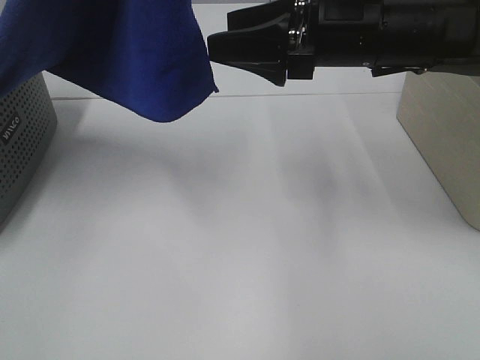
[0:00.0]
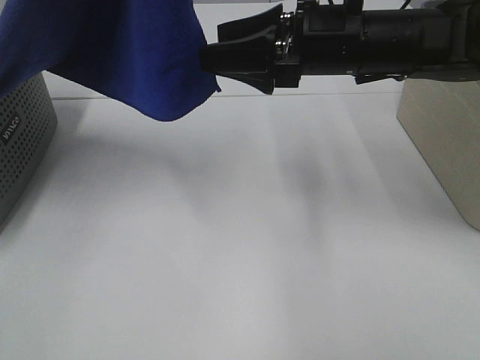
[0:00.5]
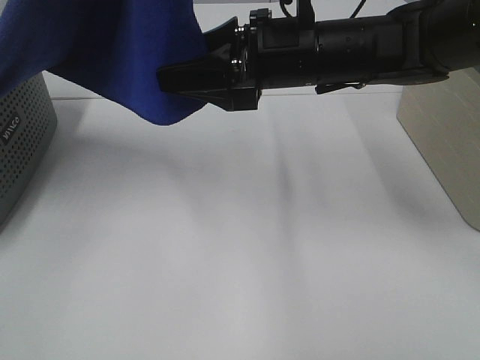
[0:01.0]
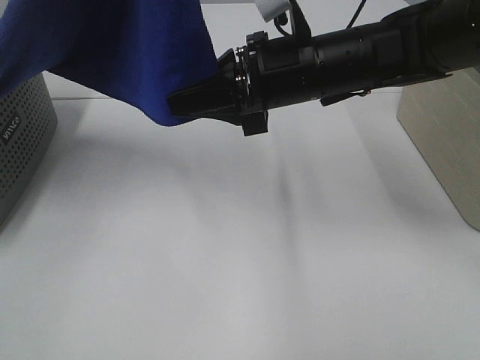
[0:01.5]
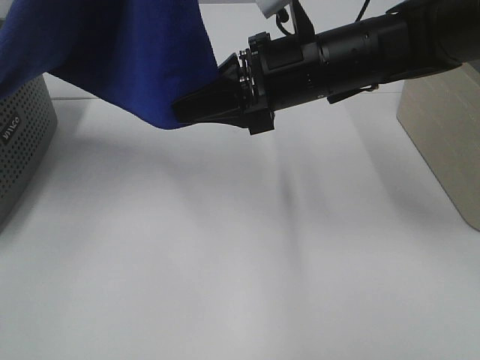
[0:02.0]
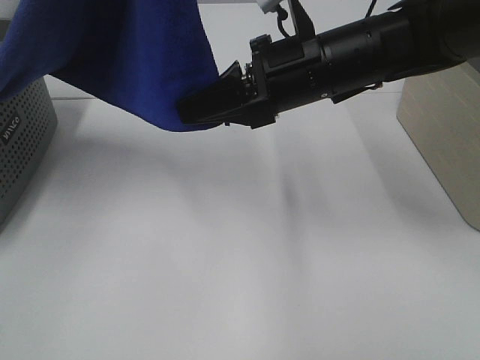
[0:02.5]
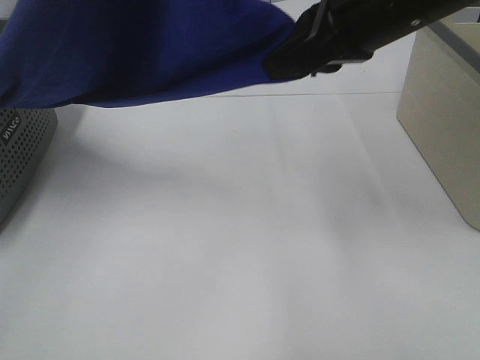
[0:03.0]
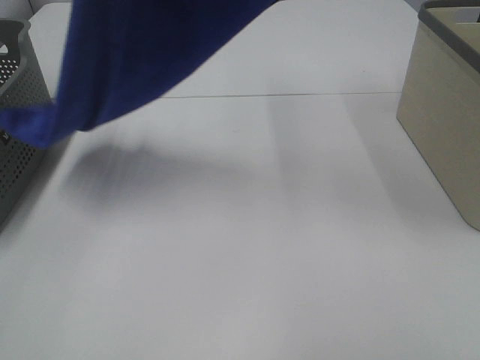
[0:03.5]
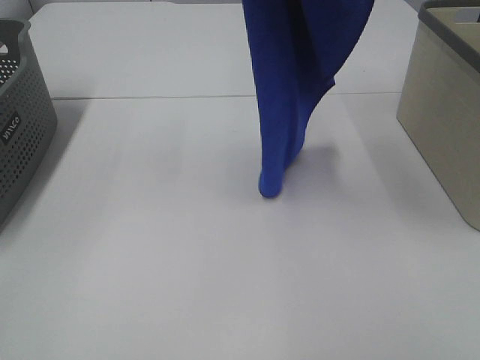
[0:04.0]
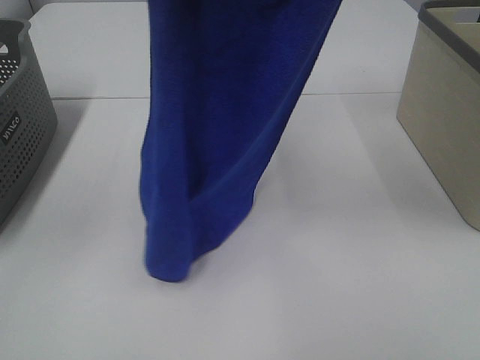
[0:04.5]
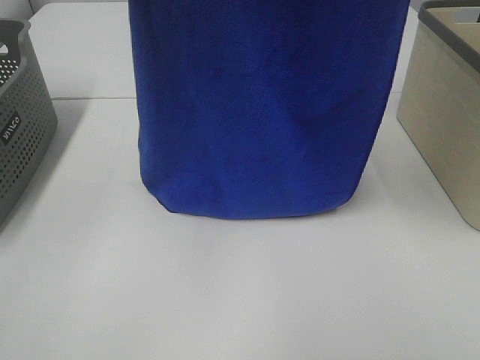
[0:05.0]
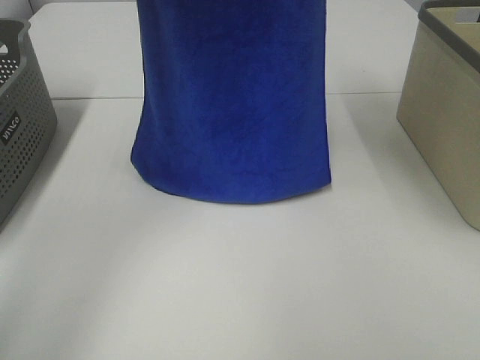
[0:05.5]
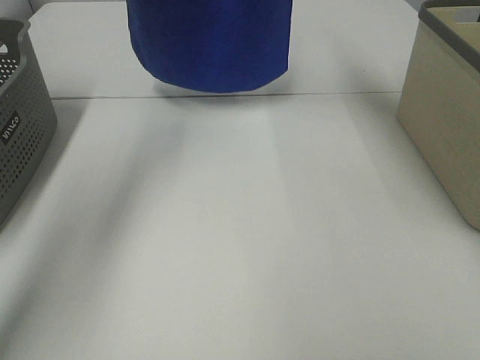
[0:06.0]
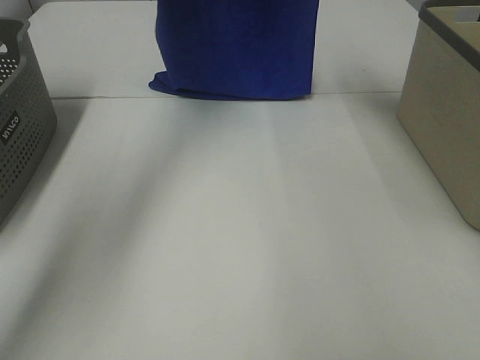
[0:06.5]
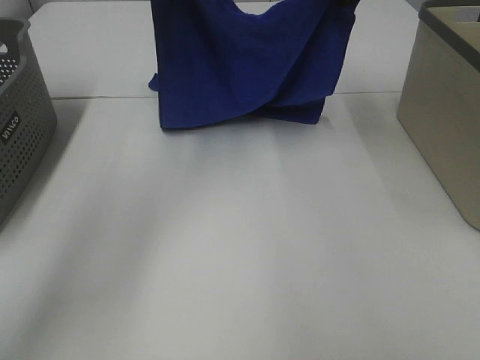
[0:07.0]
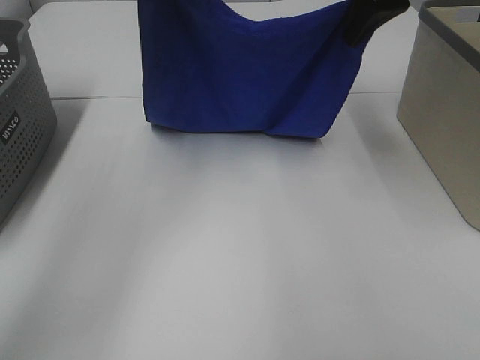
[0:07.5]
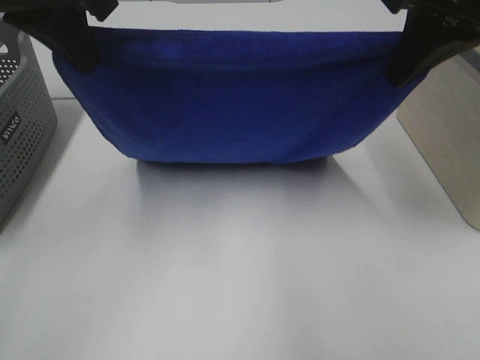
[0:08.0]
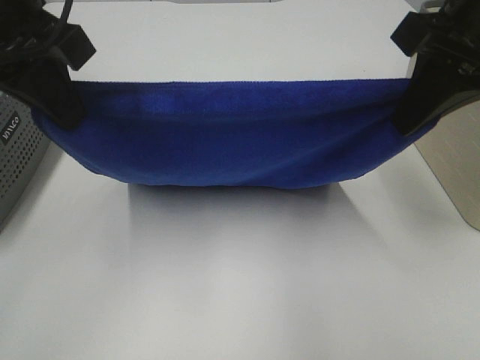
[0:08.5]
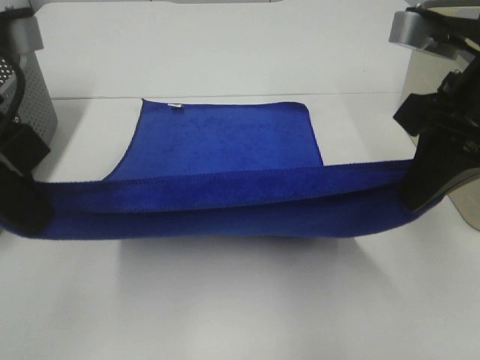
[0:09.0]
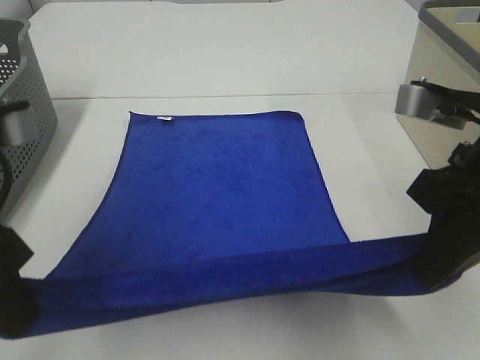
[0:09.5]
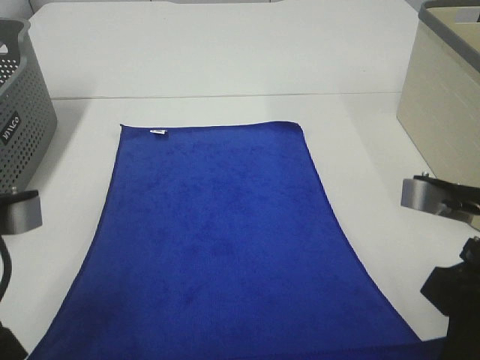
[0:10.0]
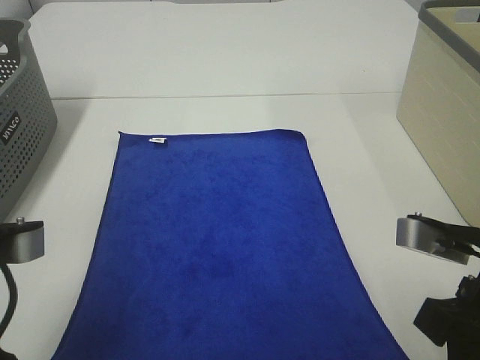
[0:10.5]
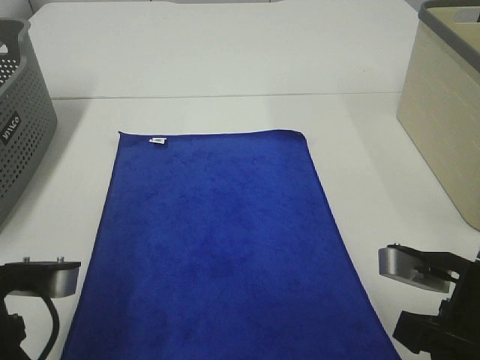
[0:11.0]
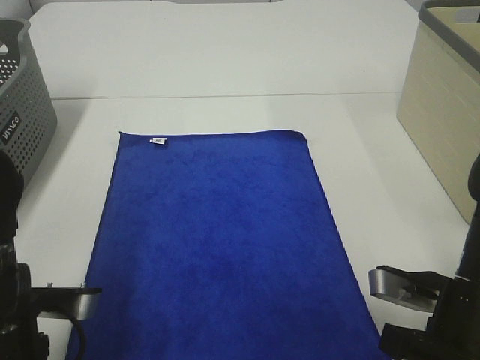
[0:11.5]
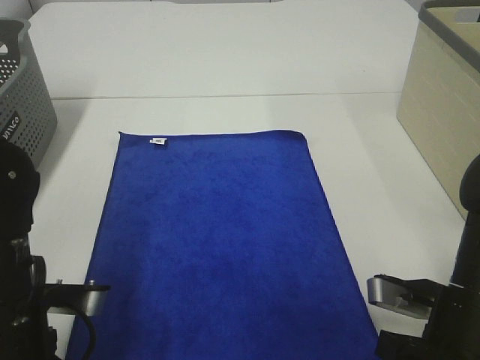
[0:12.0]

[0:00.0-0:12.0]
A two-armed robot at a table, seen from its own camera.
Task of the whole recording: Remove the towel and place it.
Step, 0:01.5 to 0:07.5: Left hand: spread the blue towel flat on the table.
Step, 0:01.5 to 0:08.0: Right hand: spread the blue towel flat on the table.
0:00.0 to 0:02.0: The right gripper changes place by about 5 cm, and closes up.
0:02.0 to 0:04.0: The right gripper moves upward and to the right, about 25 cm, and closes up.
0:04.0 to 0:06.0: The grippers both shift forward by roughly 25 cm.
0:06.0 to 0:08.0: The two grippers go approximately 20 cm backward and downward.
0:08.0 to 0:10.0: The left gripper heads backward and downward, covering roughly 20 cm. The right gripper goes some 20 cm downward and backward.
0:10.0 to 0:12.0: Both grippers travel together downward, some 10 cm.

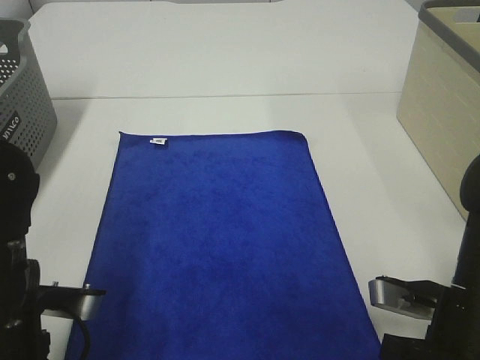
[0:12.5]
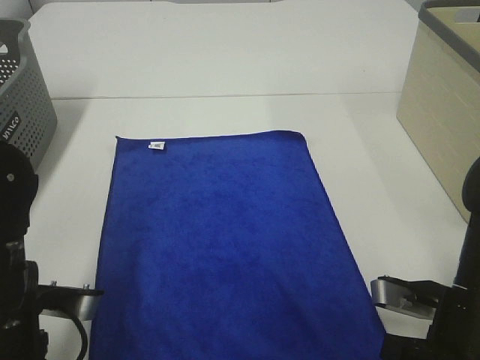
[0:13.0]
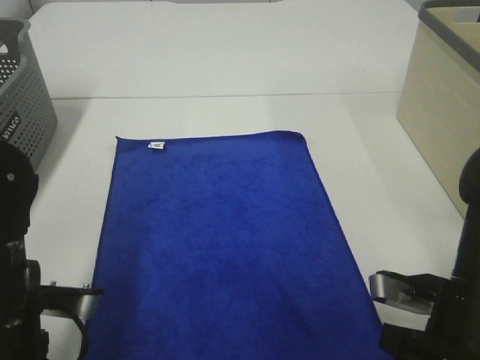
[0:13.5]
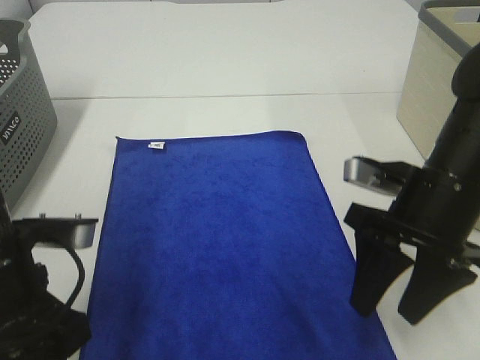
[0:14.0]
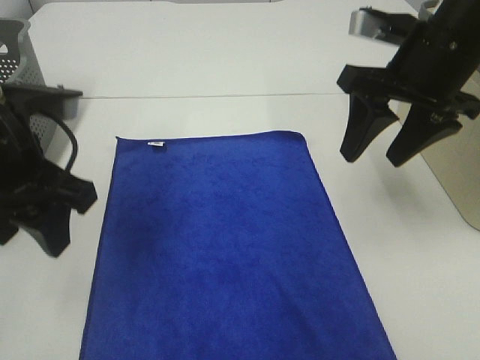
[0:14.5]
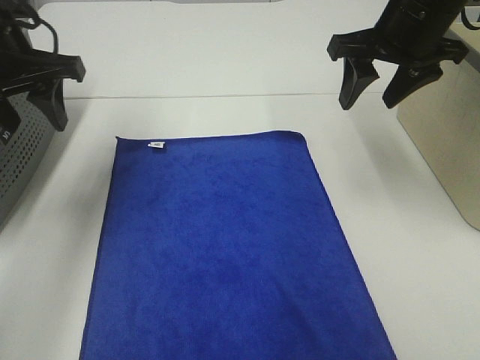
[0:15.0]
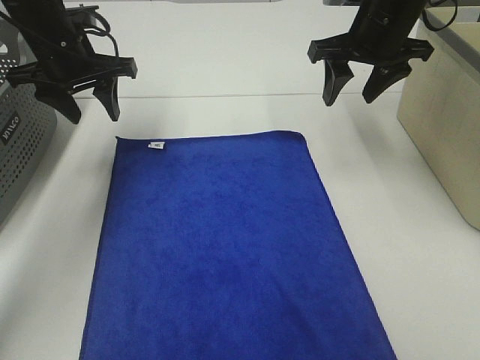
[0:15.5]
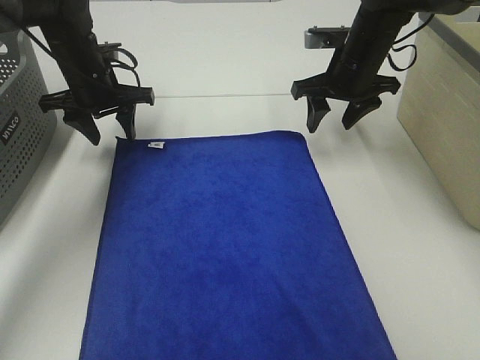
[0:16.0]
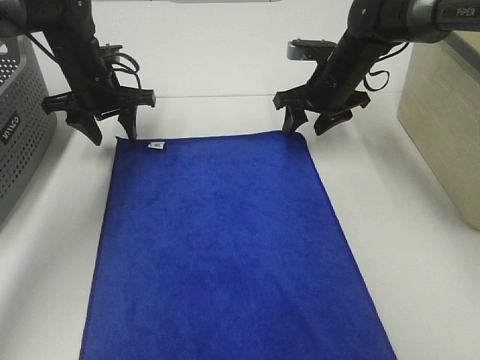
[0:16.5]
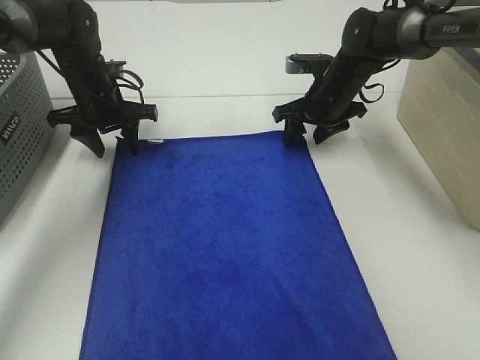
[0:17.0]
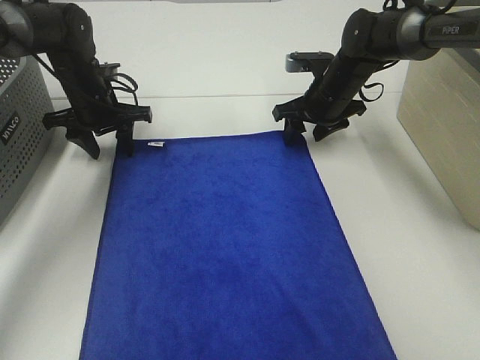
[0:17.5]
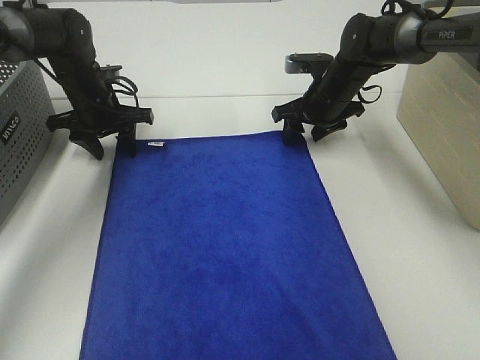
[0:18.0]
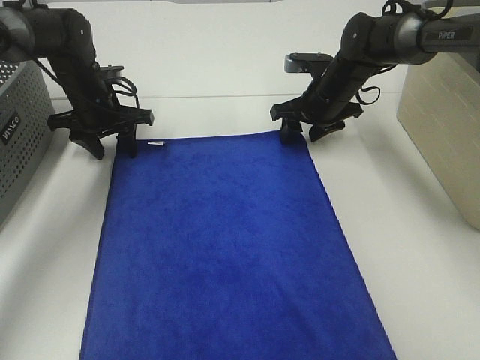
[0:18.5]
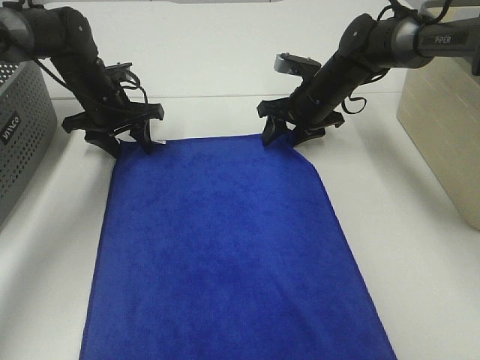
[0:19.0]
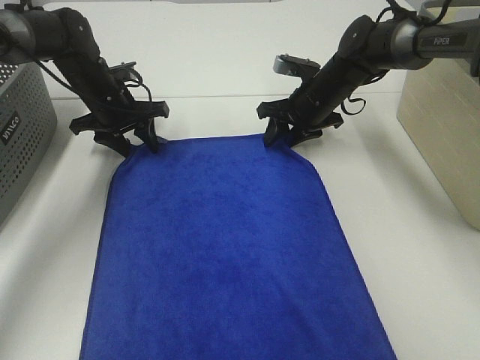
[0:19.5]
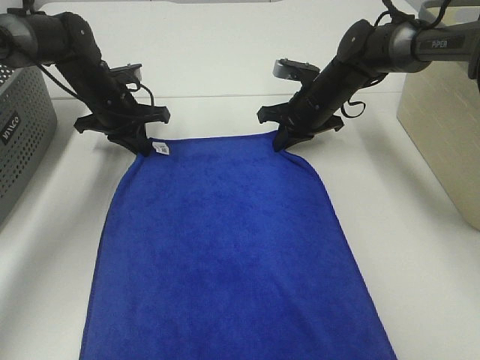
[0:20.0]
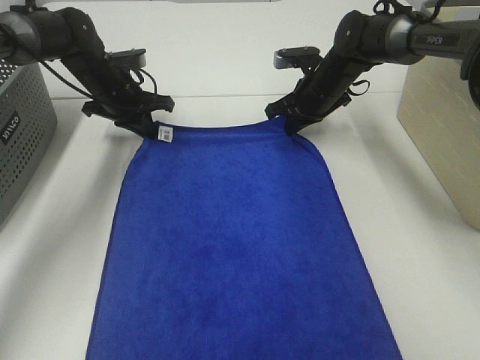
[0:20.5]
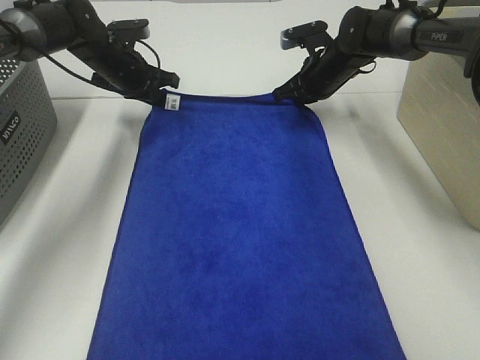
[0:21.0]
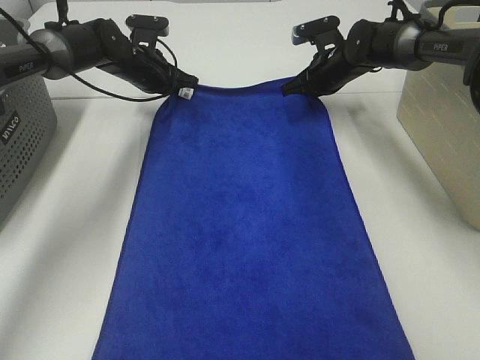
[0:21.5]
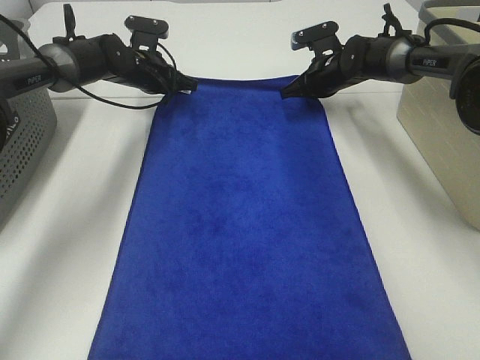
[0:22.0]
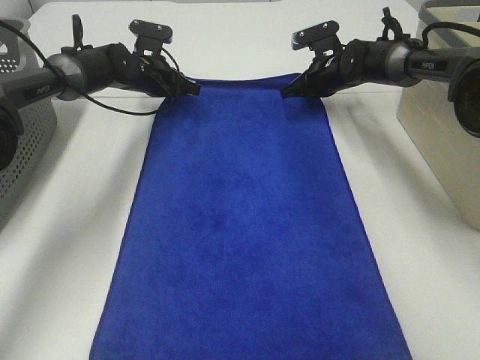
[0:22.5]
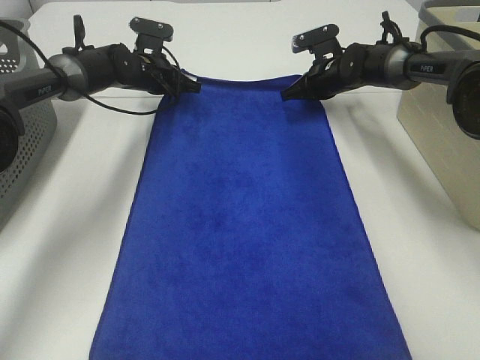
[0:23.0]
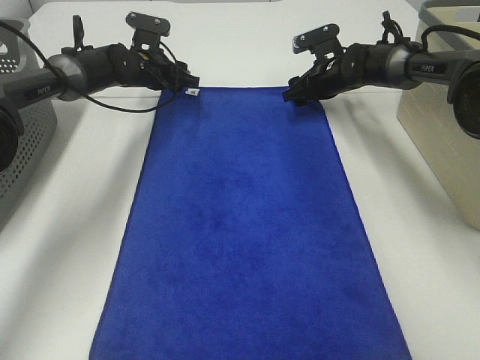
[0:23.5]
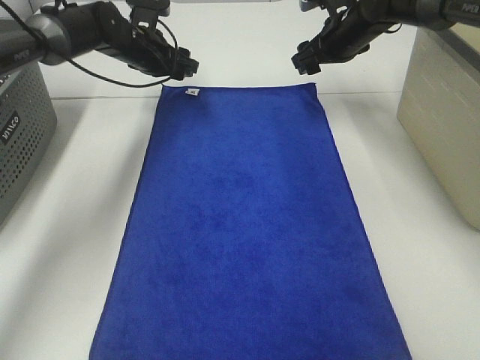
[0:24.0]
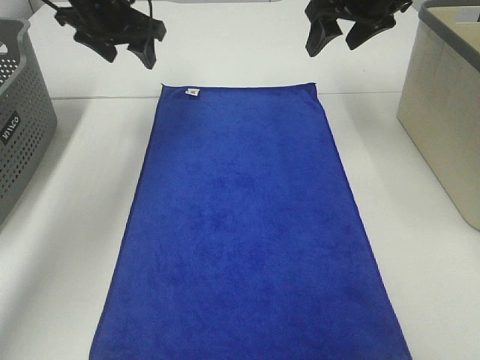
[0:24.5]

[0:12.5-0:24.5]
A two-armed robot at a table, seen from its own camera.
Task of the whole recording: Remove the towel and place it.
Step, 0:12.5 to 0:16.0: Left hand:adjust the blue towel.
Step, 0:12.5 to 0:16.0: Right hand:adjust the blue towel.
0:12.5 to 0:14.5: The right gripper goes some 25 cm upward and forward, and opens up; the left gripper travels upward and forward by about 15 cm, and opens up.
0:14.5 to 0:16.5: The right gripper moves forward and downward, about 20 cm. Meanwhile the left gripper shifts approximately 25 cm forward.
0:16.5 to 0:18.5: There are only small adjustments of the grippers.
0:18.5 to 0:20.5: The left gripper closes. The right gripper closes its fingers.
0:20.5 to 0:22.5: Both grippers travel together forward, roughly 5 cm.
0:22.5 to 0:24.5: The grippers both shift upward and backward by roughly 20 cm. The right gripper opens, while the left gripper opens.

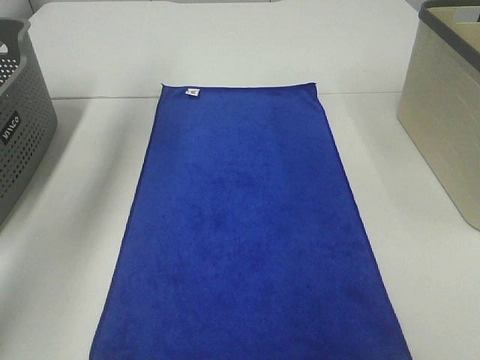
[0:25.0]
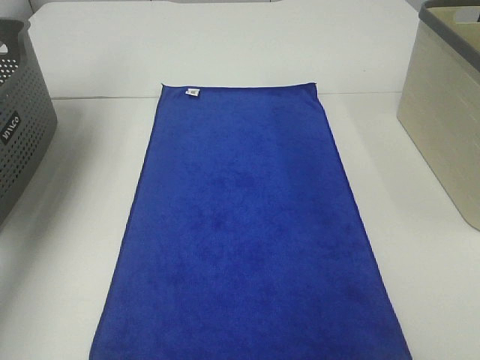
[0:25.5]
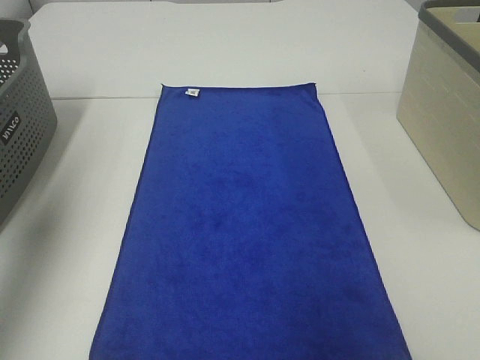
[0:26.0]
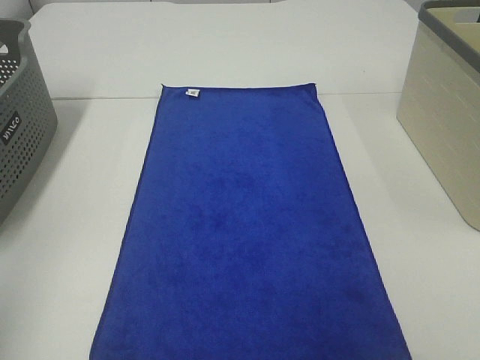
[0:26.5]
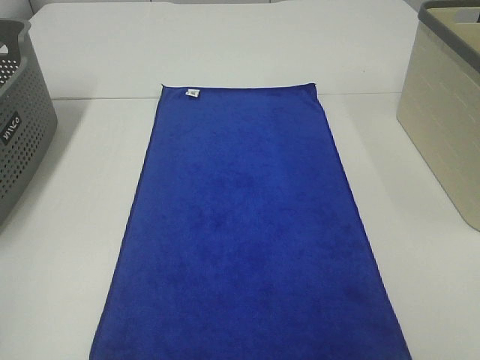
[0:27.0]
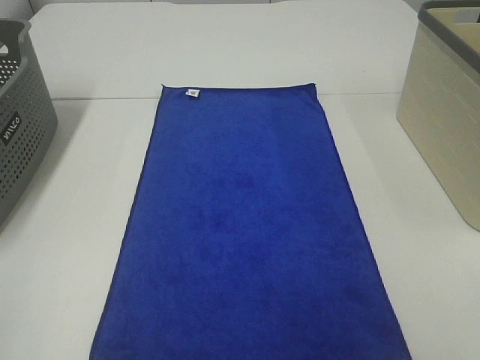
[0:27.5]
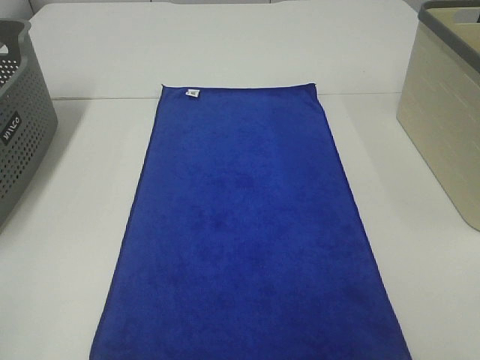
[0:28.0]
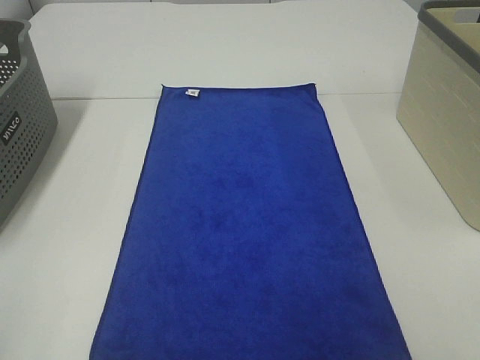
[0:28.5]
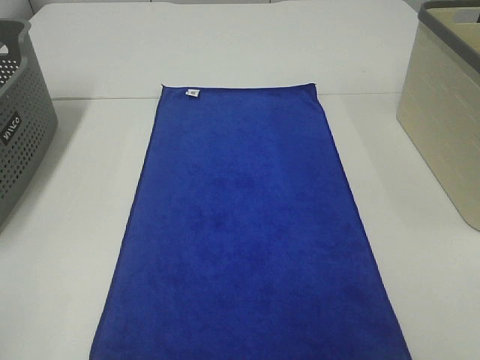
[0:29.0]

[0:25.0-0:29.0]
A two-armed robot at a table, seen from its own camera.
Task of the whole recording: Remove the towel and place it.
0:25.0 to 0:27.0: The left gripper is displaced backward by roughly 40 cm.
